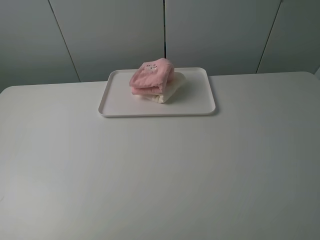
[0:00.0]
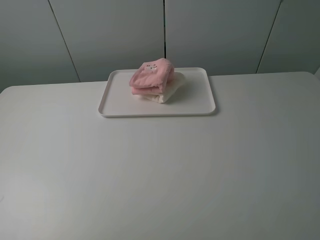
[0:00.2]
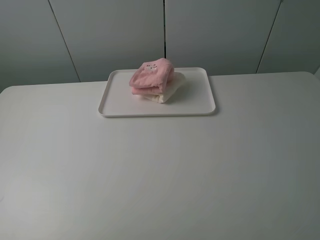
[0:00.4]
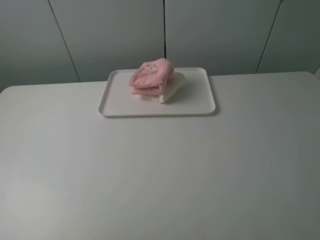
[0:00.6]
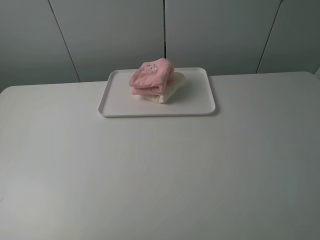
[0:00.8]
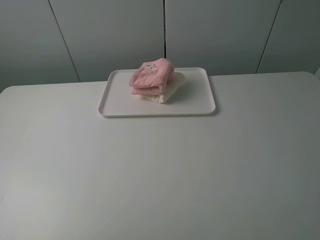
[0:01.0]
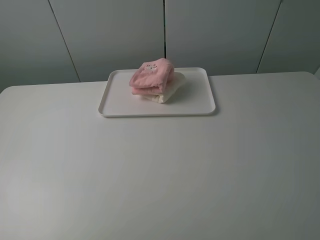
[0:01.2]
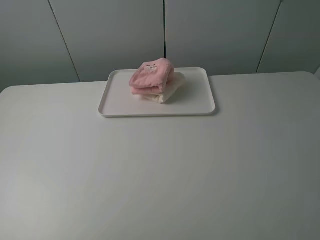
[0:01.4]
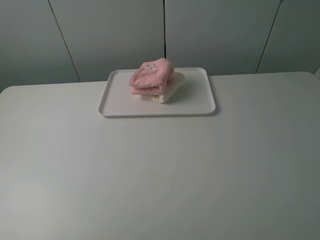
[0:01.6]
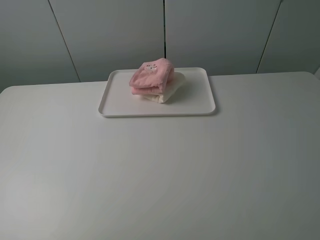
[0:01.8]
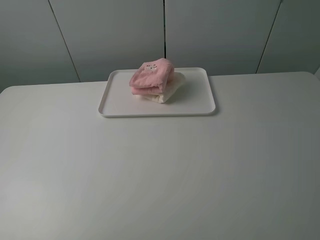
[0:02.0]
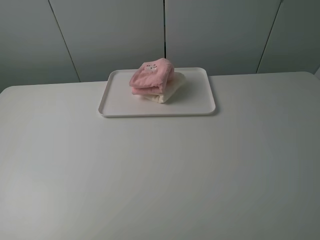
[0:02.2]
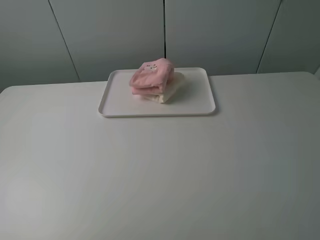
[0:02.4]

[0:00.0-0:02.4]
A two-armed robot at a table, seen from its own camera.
Task of the whole recording: fold one of the towels by two grippers and place it on the tray,then fold another towel by two grippers and place it on the folded towel.
0.0 to 2.4 s: The two grippers keep their place.

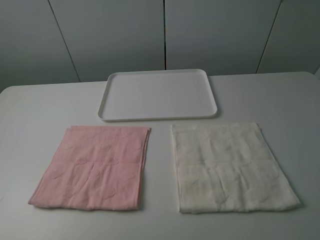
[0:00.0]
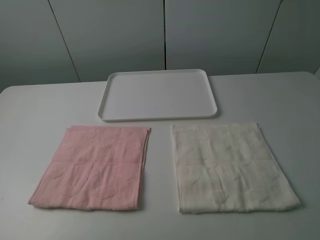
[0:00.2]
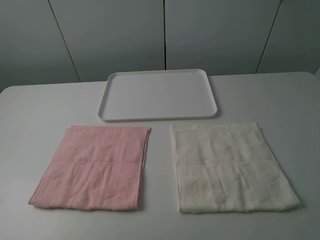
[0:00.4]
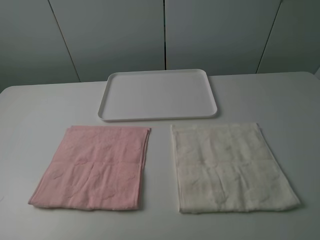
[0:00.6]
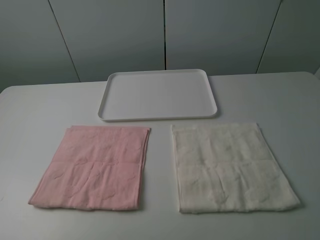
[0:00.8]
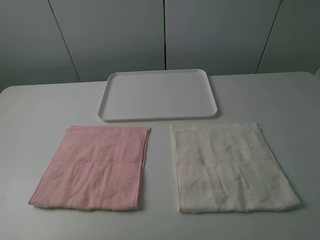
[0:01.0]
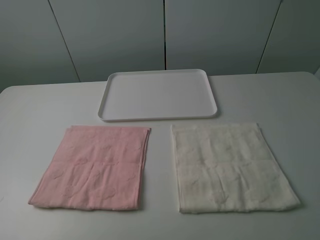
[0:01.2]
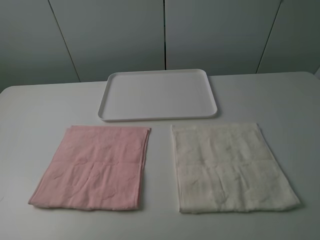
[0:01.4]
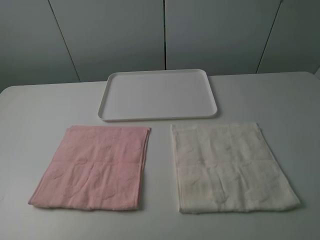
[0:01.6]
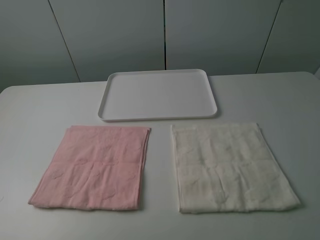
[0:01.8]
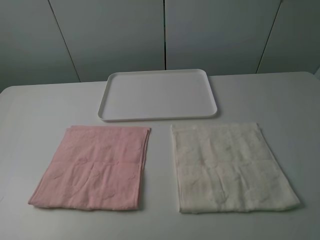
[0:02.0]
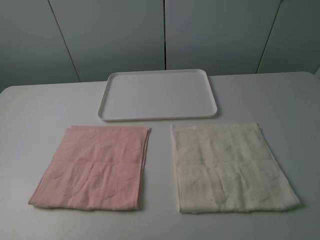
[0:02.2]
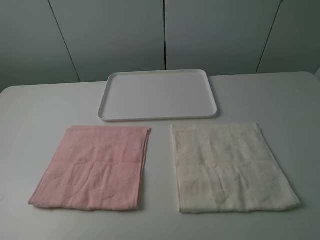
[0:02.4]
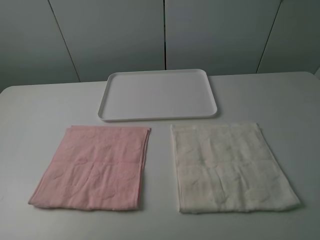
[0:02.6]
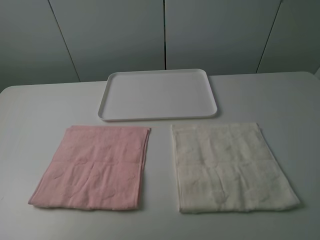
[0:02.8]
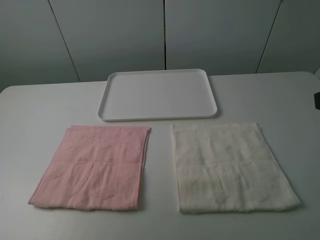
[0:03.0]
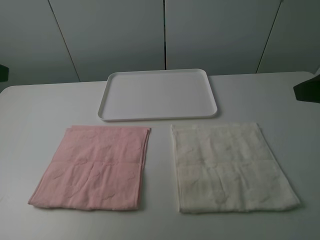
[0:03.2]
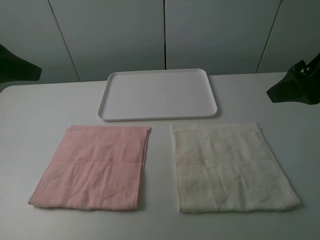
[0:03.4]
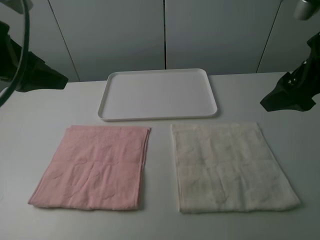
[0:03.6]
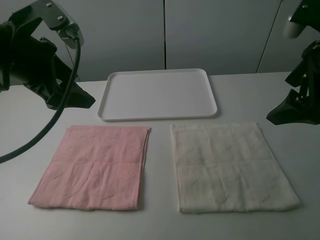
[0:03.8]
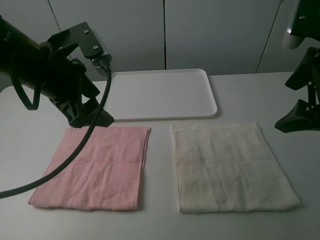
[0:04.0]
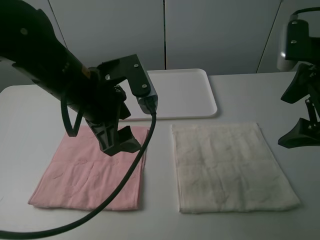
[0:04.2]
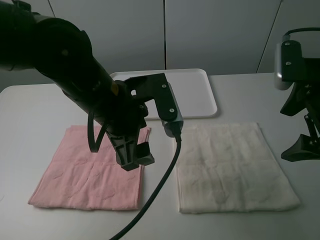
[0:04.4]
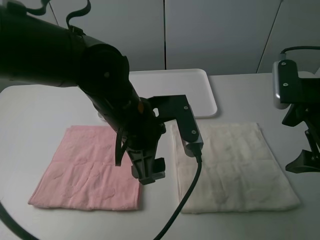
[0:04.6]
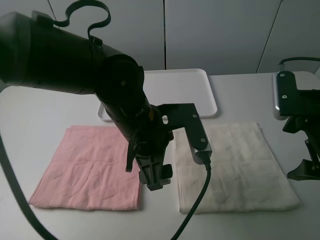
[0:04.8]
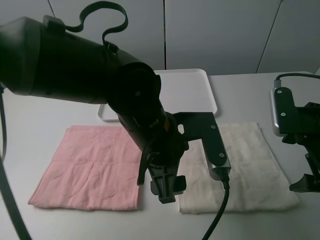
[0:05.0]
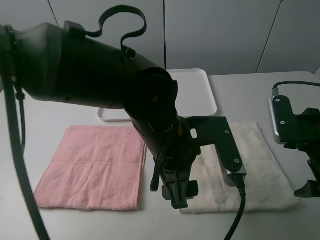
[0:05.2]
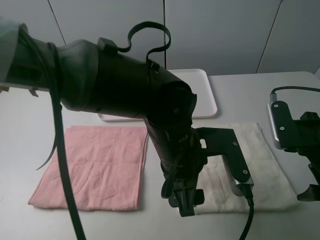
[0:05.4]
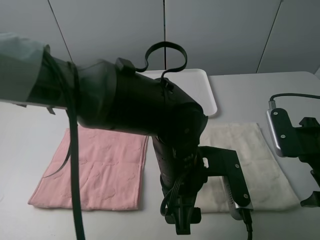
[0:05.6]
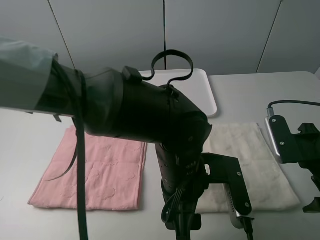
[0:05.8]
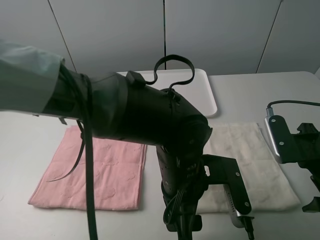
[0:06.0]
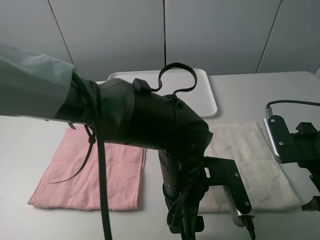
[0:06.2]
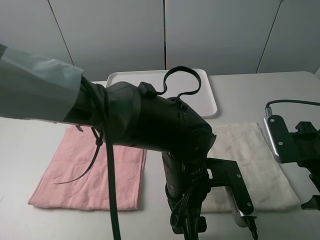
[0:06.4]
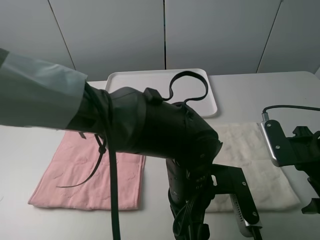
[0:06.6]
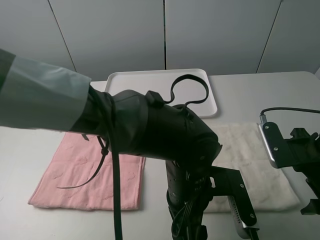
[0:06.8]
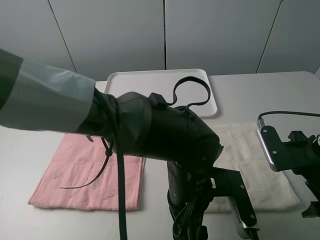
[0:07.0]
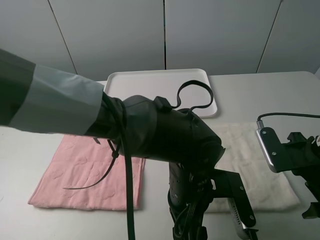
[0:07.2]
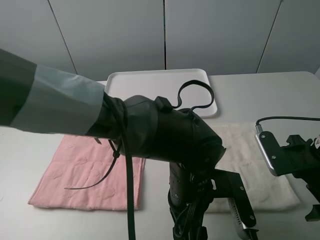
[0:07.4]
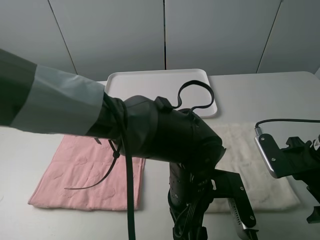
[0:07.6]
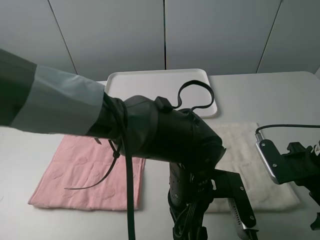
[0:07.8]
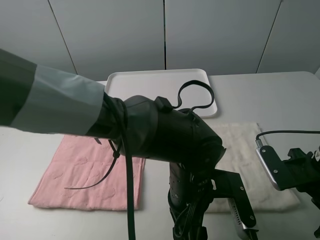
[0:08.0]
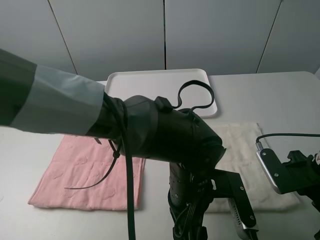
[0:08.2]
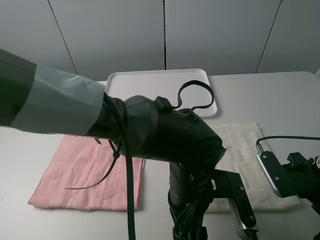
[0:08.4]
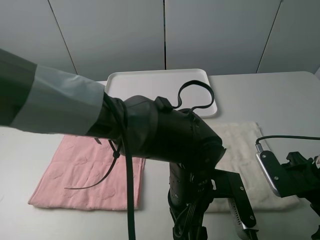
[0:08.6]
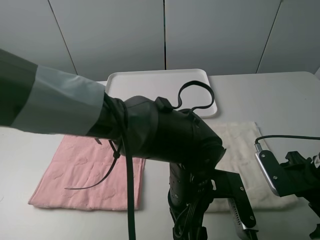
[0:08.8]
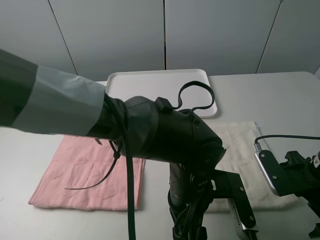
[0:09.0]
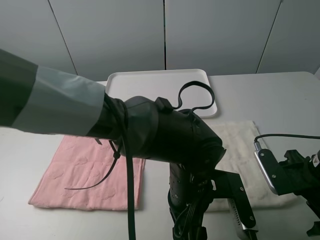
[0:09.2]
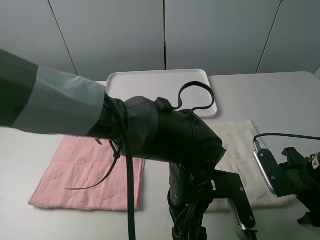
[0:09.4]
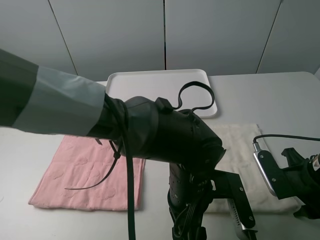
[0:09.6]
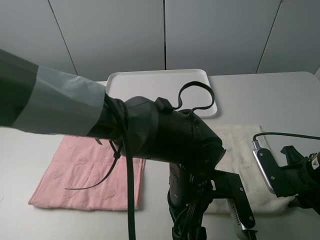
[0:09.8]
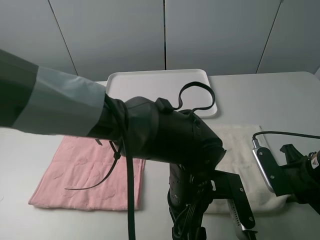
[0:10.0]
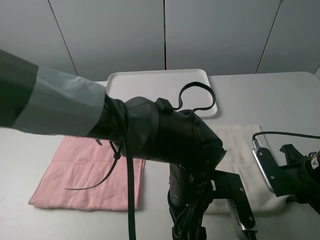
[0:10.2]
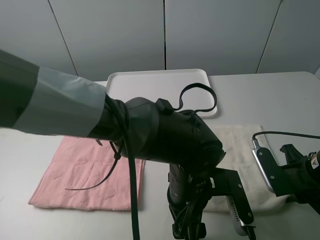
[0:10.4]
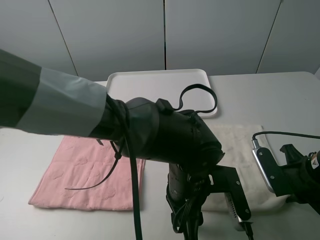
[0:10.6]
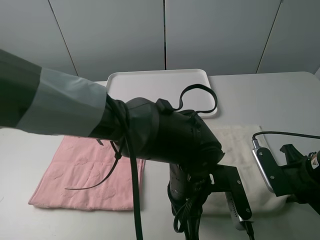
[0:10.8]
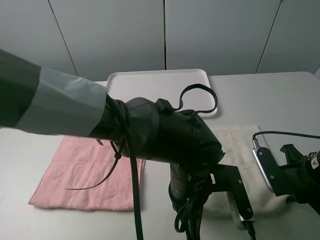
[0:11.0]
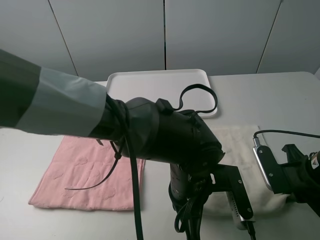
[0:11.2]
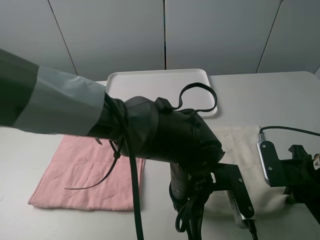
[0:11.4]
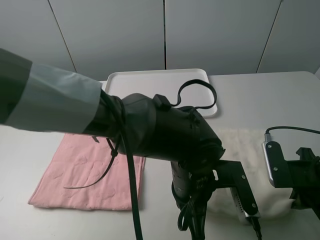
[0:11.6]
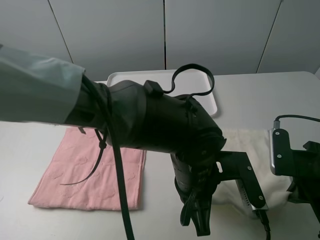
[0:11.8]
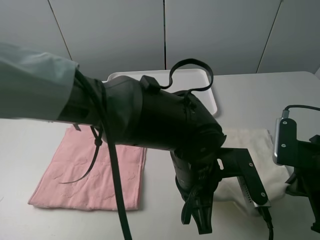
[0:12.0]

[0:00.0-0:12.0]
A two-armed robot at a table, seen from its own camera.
Task of the whole recording: fold one of the towels by two grippers and place it on the tray,then fold another towel by two grippers and place it on the folded towel.
Step, 0.0 to 11.2 s: Grasp the white towel with the left gripper.
0.0 to 1.6 s: Neither gripper changes place.
3.0 to 4.4 s: The right gripper is displaced forward and downward by roughly 10 cm; the left gripper is displaced to the right and downward by some 25 cm.
4.4 to 6.0 s: The right gripper heads downward, covering some 10 cm. Meanwhile the left gripper travels to the right, downward and backward by approximately 15 cm.
7.6 to 9.0 s: The grippers make only small movements.
9.0 to 10.4 s: The right gripper closes up.
10.4 to 12.0 s: The right gripper shifts by about 5 cm; the left gripper closes up.

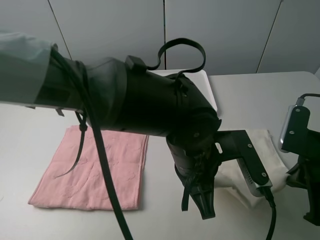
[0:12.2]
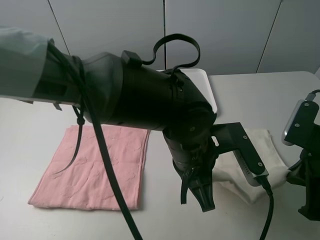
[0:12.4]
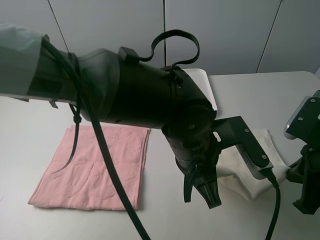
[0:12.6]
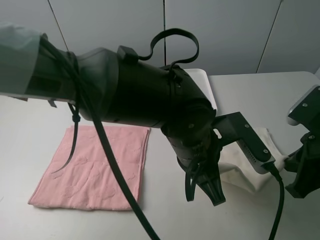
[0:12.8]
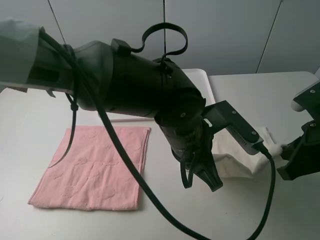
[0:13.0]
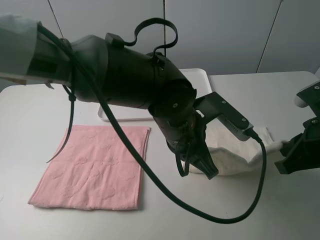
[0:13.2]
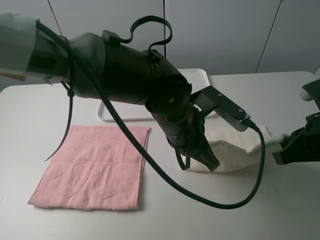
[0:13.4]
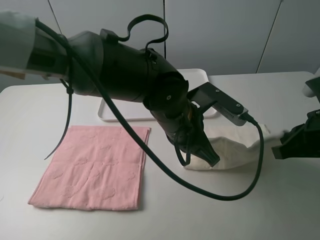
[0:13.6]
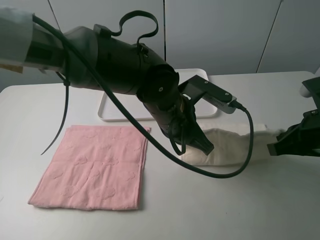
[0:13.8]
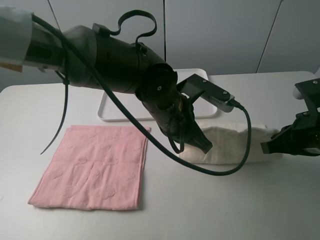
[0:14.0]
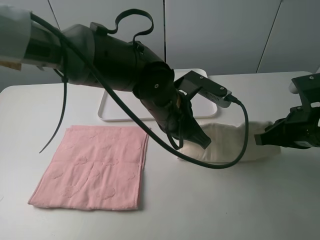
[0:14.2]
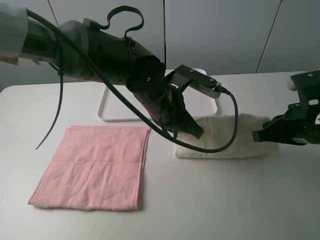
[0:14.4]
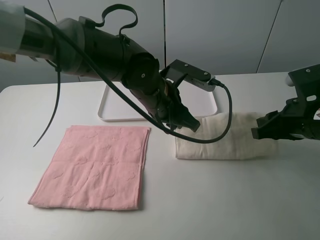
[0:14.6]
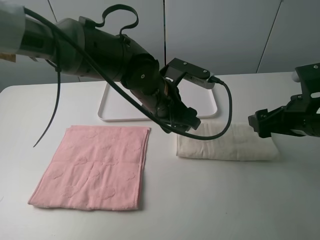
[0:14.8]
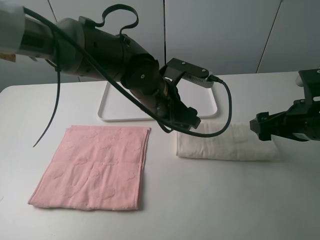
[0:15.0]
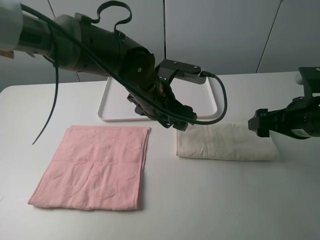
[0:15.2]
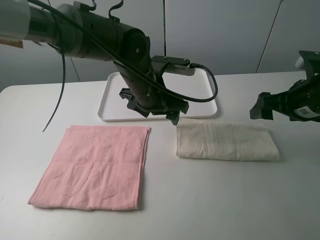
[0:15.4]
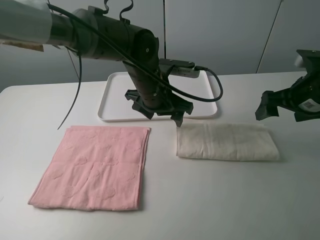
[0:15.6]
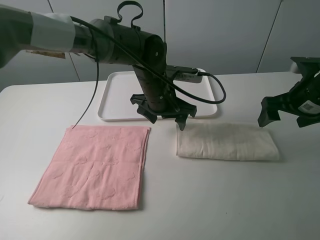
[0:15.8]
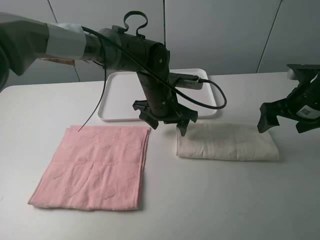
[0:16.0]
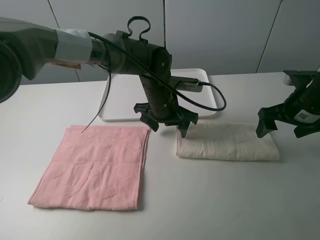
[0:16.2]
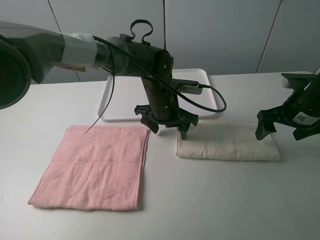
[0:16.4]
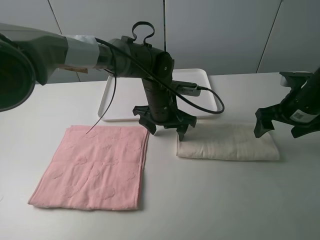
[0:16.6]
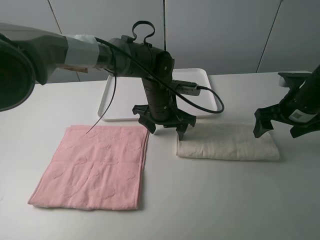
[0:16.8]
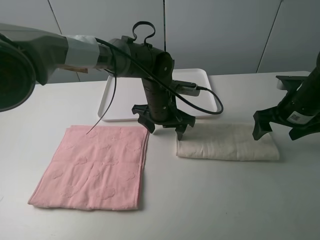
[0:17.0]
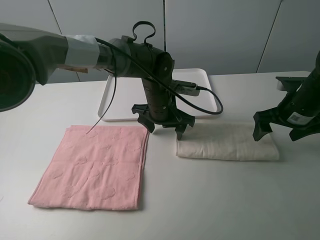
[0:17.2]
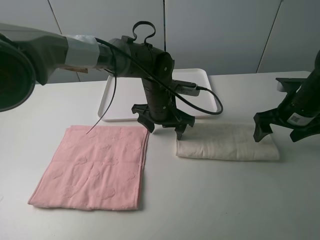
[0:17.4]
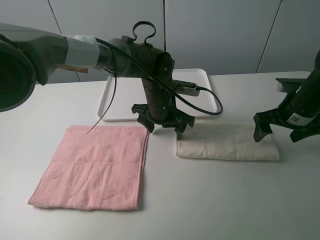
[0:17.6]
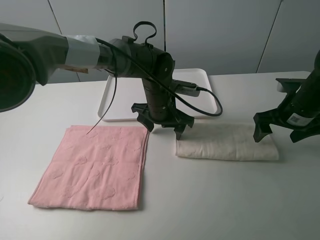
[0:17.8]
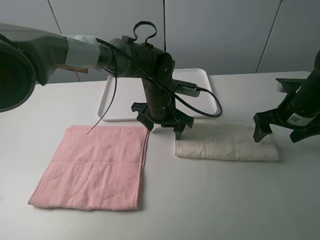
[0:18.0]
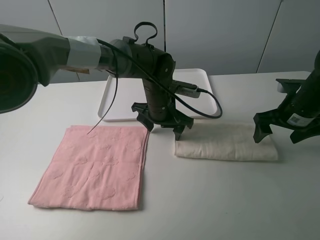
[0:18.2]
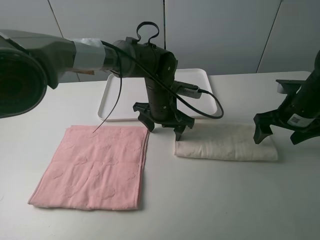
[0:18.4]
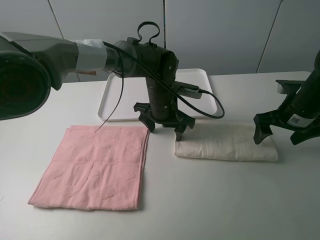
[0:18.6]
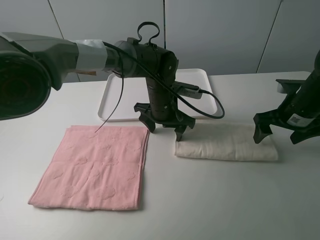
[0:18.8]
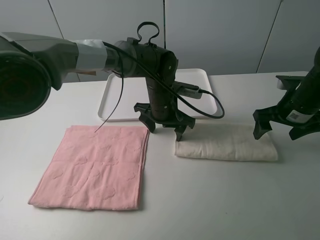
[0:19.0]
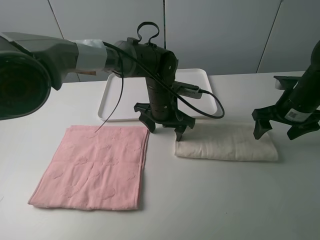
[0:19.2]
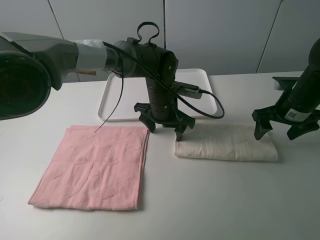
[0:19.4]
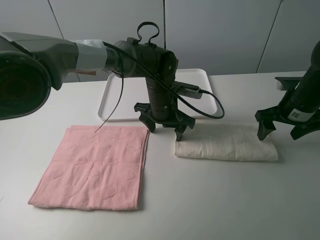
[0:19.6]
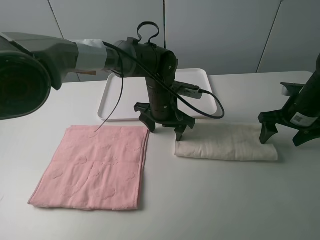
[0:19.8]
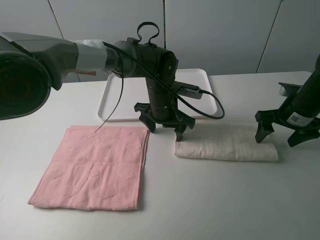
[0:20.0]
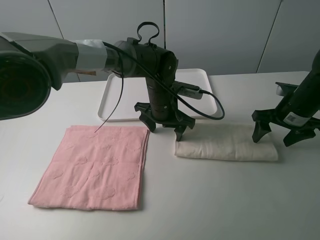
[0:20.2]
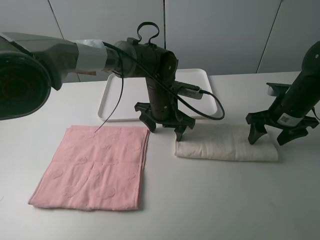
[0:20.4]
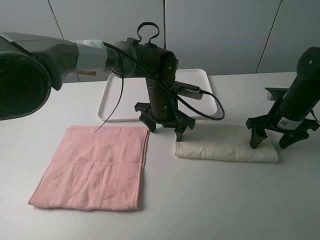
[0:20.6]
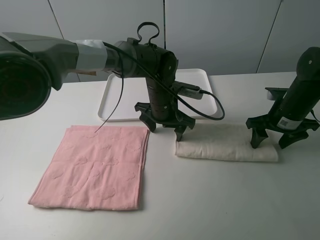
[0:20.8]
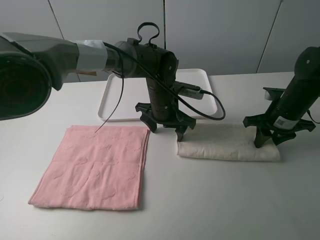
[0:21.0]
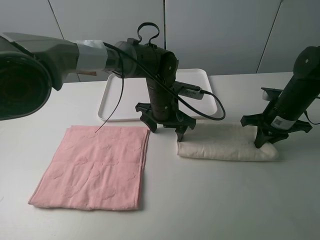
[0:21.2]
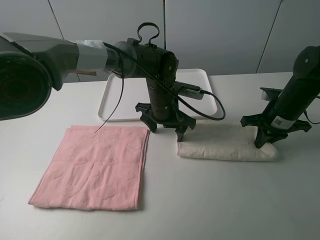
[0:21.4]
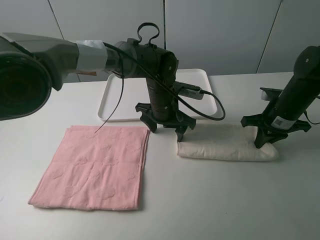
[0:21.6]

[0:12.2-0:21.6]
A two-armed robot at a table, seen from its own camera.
Task of the whole recording: fold one of the towels by two grippers and place it on the tray,then fold another towel by two grippers and place it on the folded towel.
Step, 12.2 to 15.0 s: Fold the white towel upwards with the left gripper.
Step, 15.4 to 17.4 s: Press the white towel with the left gripper.
Step, 17.6 to 21.2 s: Grasp the white towel with the right gripper.
12.2 to 13.8 s: The left gripper heads forward, covering roughly 10 cm.
13.8 to 15.4 s: Both grippers move forward, about 10 cm. The right gripper opens, while the left gripper opens its fingers.
15.4 to 17.0 s: The right gripper shifts by approximately 5 cm. The left gripper travels downward by roughly 5 cm.
17.0 to 20.0 s: The grippers make only small movements.
20.0 to 21.6 s: The right gripper closes.
